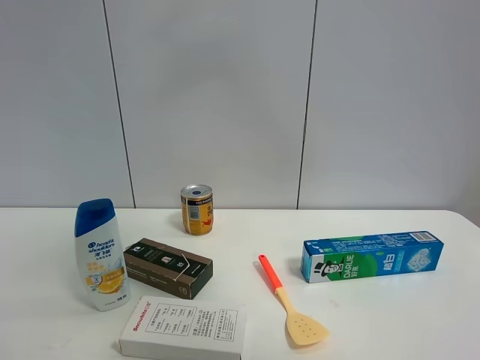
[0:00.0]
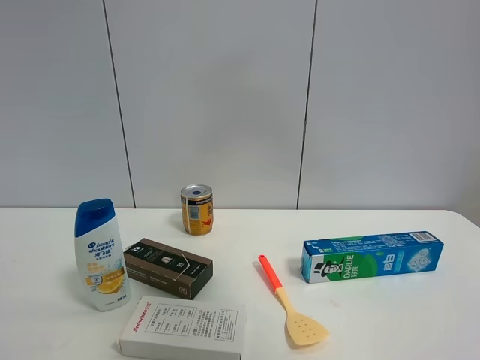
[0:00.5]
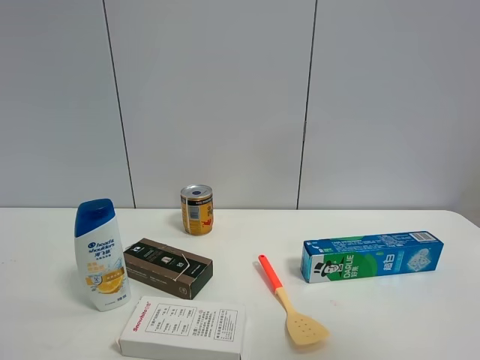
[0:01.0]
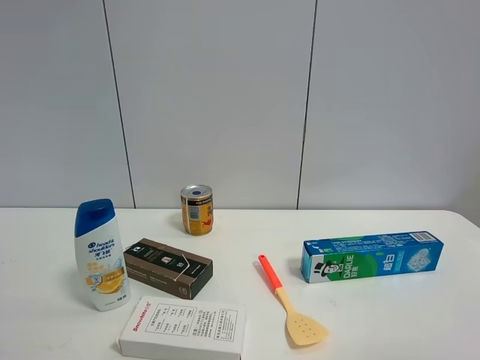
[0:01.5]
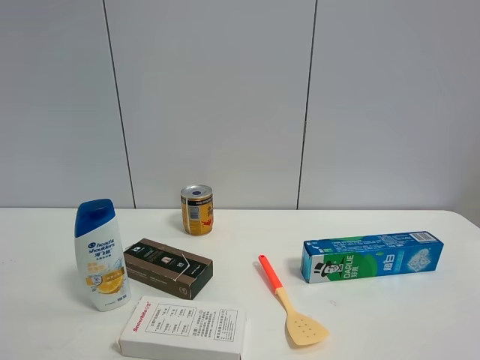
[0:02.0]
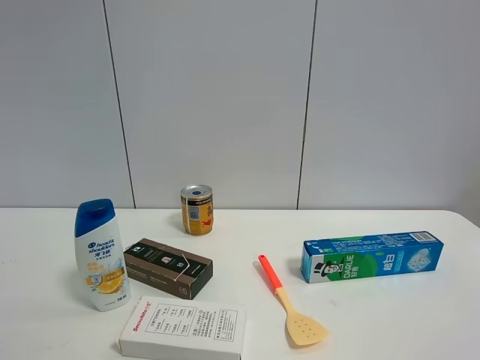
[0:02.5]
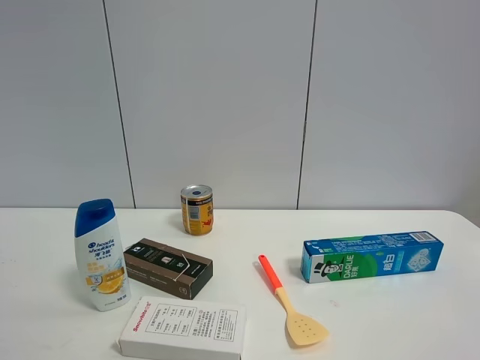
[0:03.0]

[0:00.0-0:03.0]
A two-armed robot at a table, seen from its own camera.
Task of the whole recording: the gripper move the object.
0:00.0 to 0:01.5: The right gripper is displaced to the right, backward and downward by roughly 40 cm, and opens its fingers.

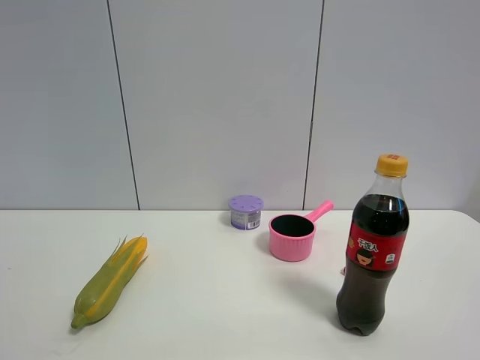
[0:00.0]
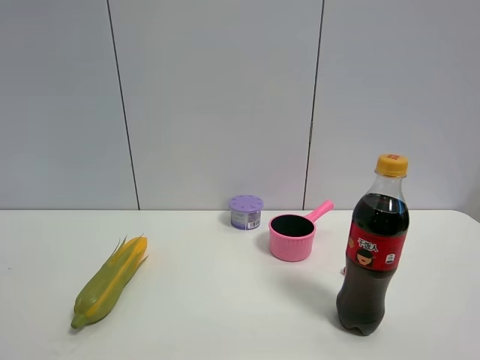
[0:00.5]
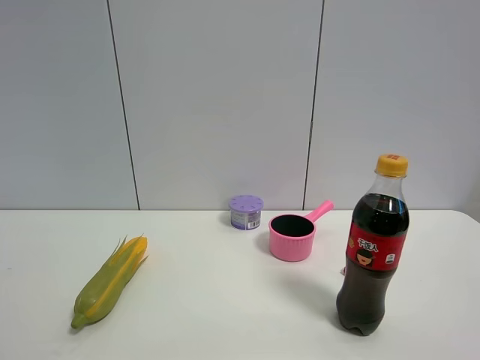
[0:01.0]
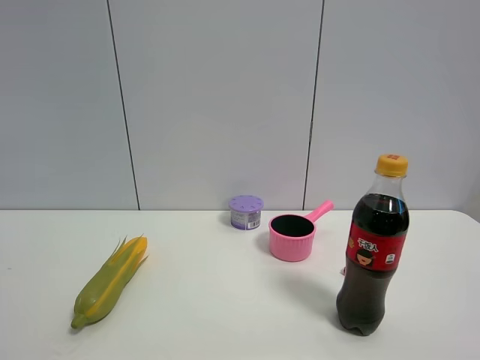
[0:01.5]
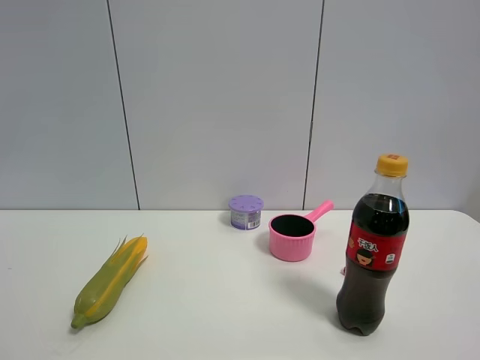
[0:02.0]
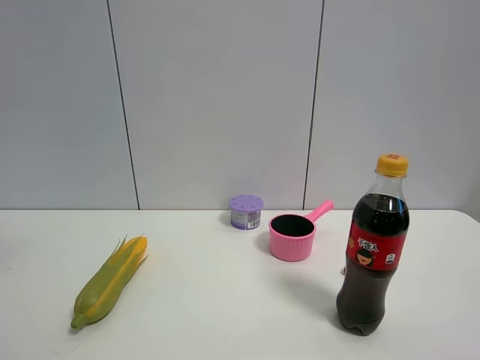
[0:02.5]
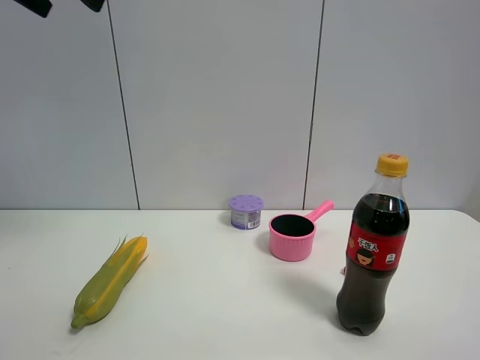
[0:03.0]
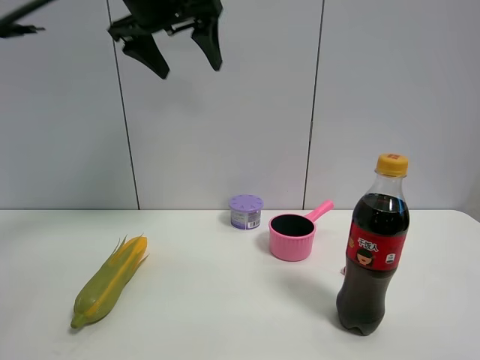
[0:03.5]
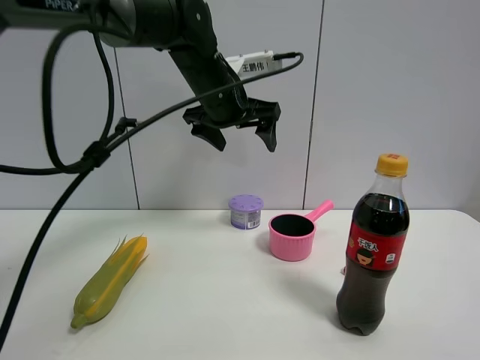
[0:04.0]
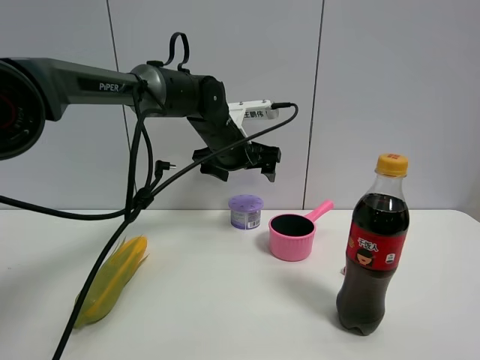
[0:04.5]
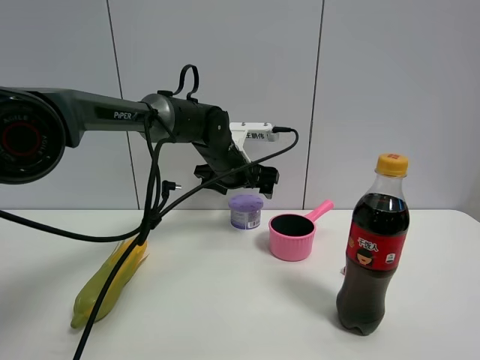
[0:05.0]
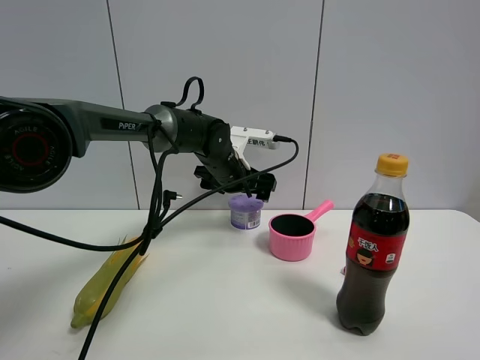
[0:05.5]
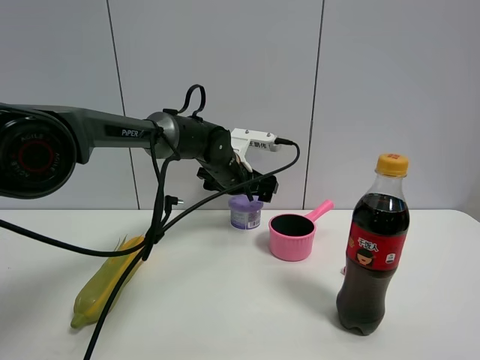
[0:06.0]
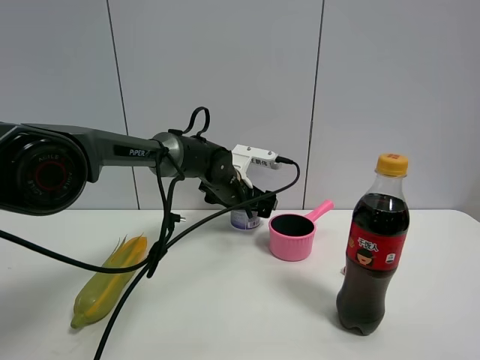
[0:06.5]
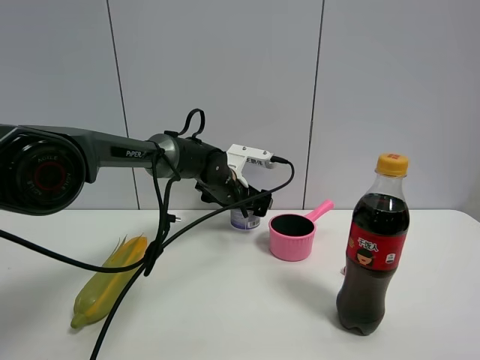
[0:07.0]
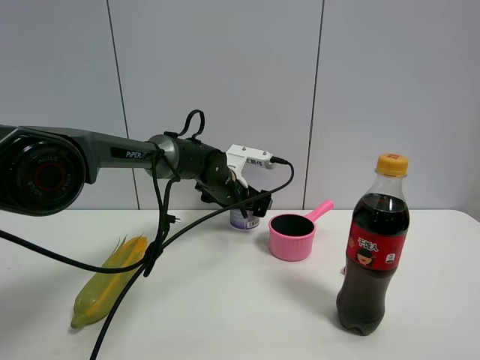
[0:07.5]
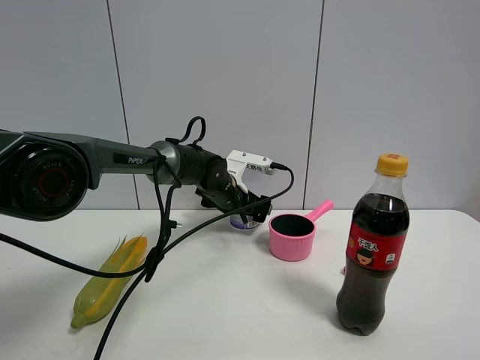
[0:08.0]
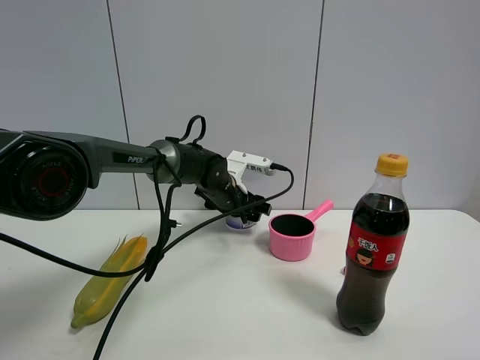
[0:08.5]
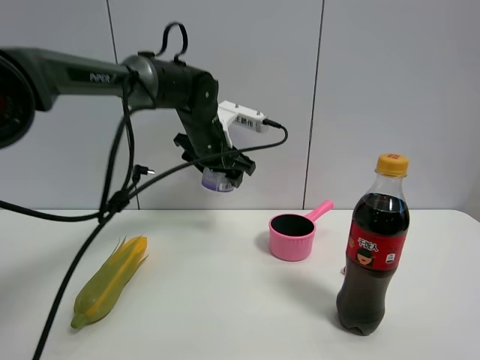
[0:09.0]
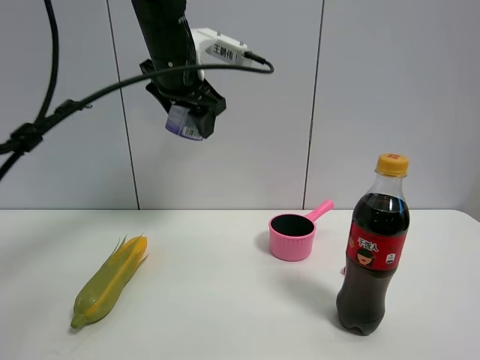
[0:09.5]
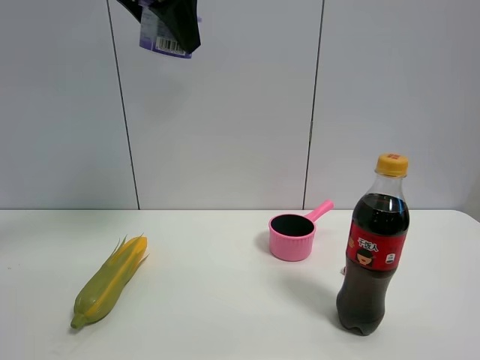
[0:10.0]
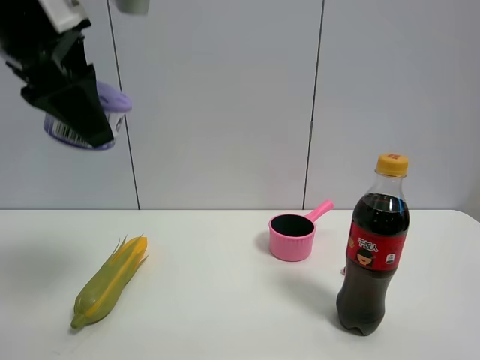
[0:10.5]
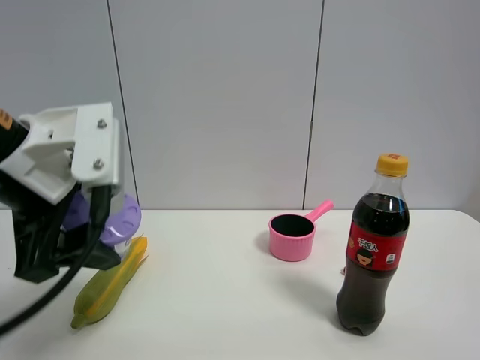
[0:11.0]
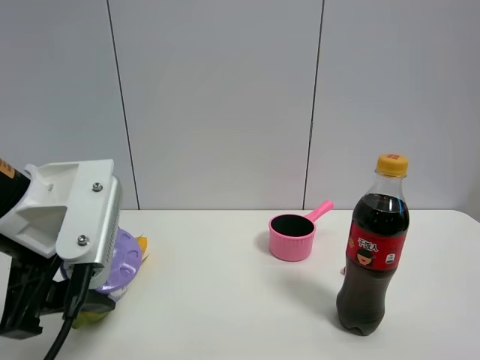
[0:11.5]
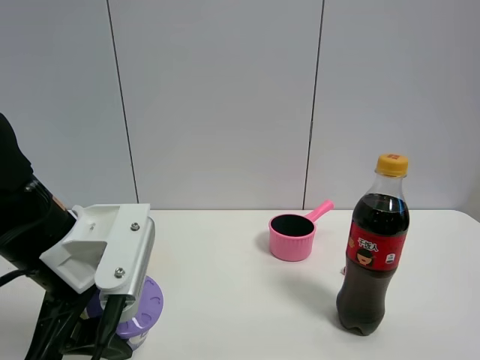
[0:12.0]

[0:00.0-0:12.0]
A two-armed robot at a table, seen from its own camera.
Task of the whole recording: the gripper move the object.
Step, 0:00.0 to 0:08.5: Grasp the Incense box with the left gripper.
0:02.0 to 0:04.0: The left gripper heads forward, to the right and downward, covering some 50 cm, and opens.
0:04.0 to 0:06.0: The left gripper moves downward, about 15 cm.
0:06.0 to 0:08.0: The grippers make only small movements.
0:08.0 to 0:10.0: The left gripper heads upward and backward, covering some 40 cm, and closes up.
0:10.0 to 0:12.0: The left gripper is displaced downward and backward by some 30 cm.

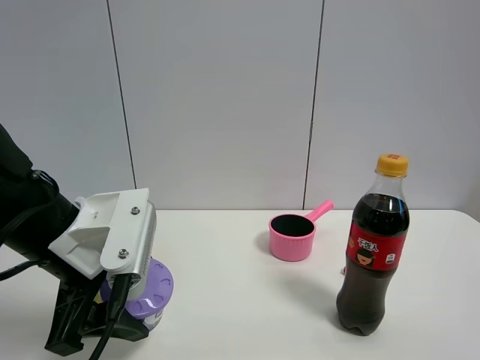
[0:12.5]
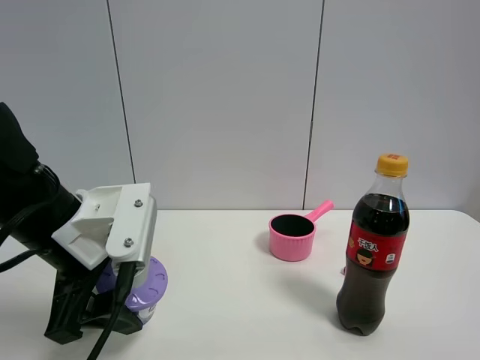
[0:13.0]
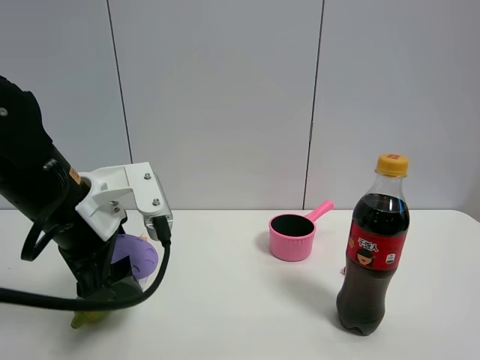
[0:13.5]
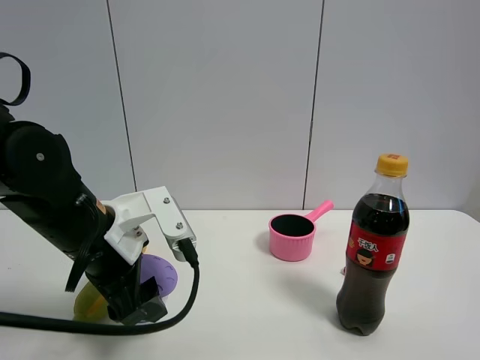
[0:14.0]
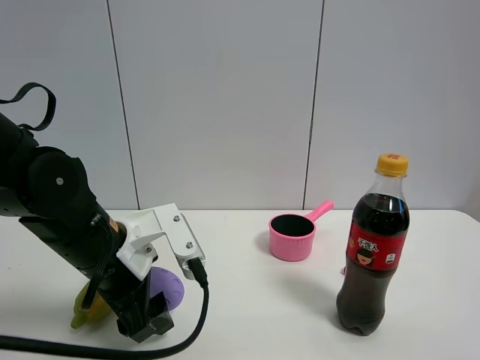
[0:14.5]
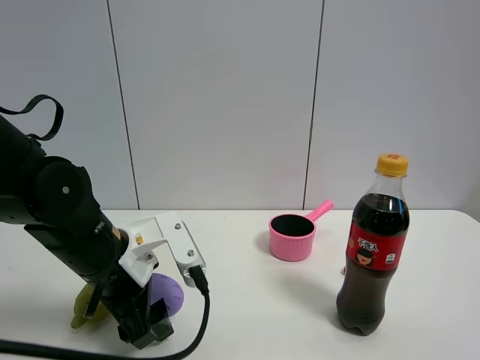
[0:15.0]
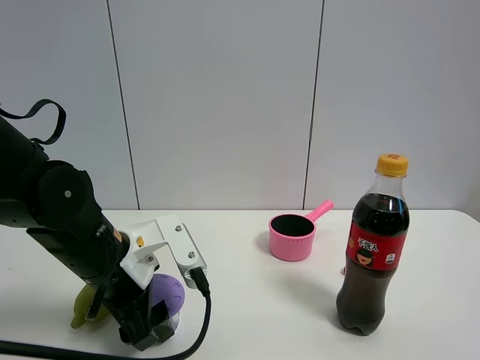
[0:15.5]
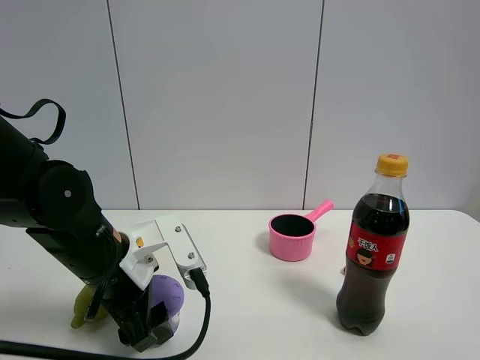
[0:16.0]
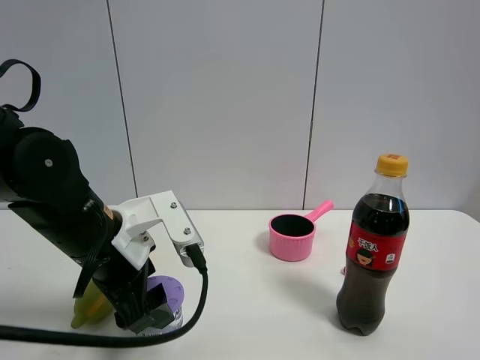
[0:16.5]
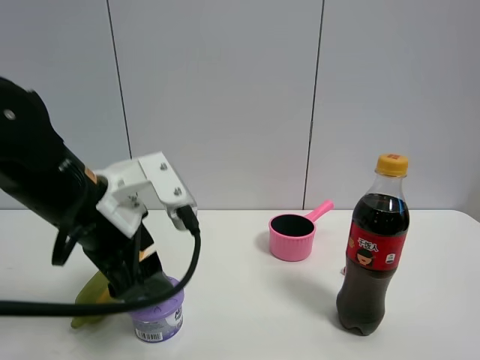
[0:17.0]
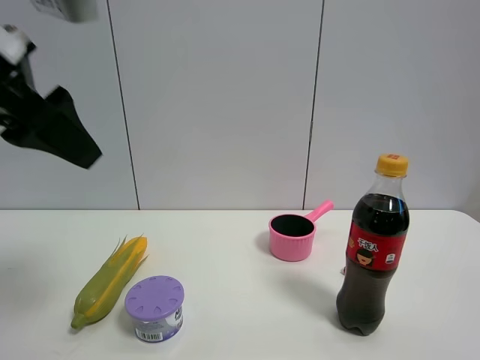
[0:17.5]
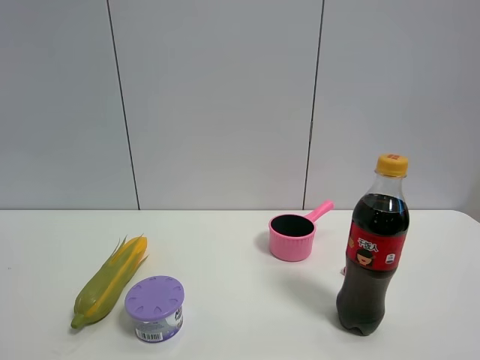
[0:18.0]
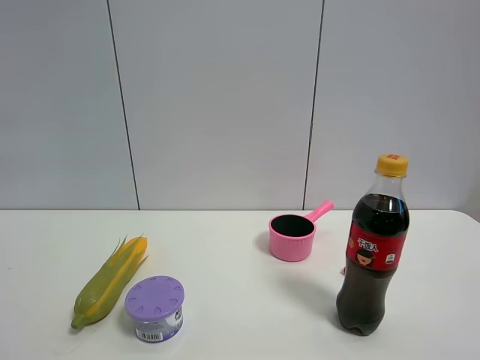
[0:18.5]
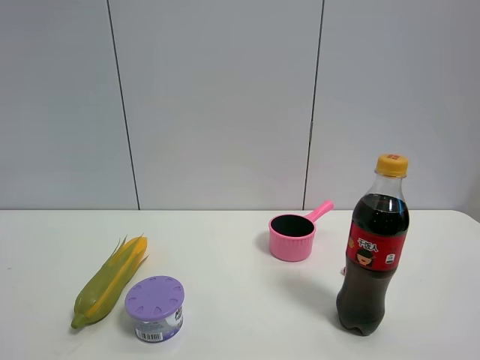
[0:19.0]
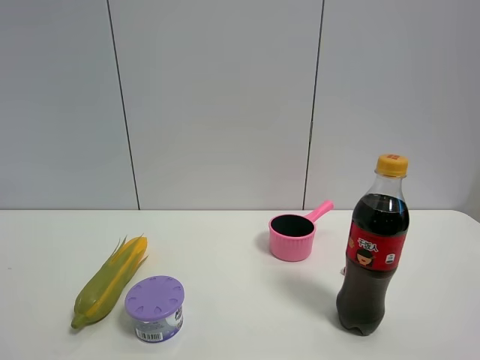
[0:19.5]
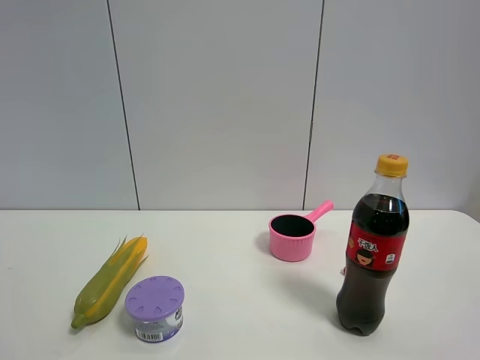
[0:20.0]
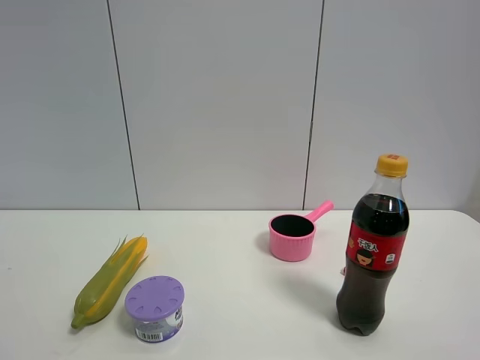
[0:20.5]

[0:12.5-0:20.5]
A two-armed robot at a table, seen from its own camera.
Task of the whole recording: the gripper move the object.
Step, 0:12.5 to 0:16.5: Place the Incense box on the table with the left gripper.
0:12.5 to 0:14.5: The left gripper changes place by some 5 cm.
0:14.5 to 0:16.5: There are only small adjustments of the grippers.
0:16.5 to 0:18.5: The left gripper moves upward, backward and to the left, approximately 40 cm.
